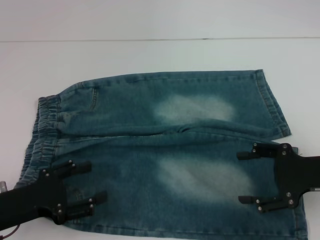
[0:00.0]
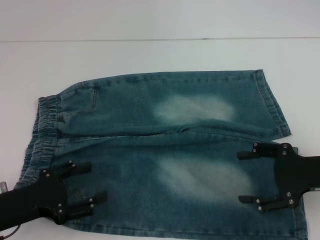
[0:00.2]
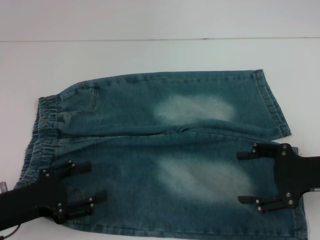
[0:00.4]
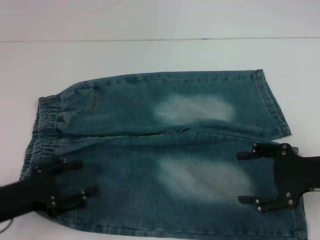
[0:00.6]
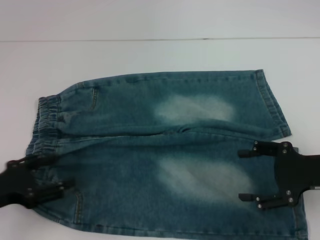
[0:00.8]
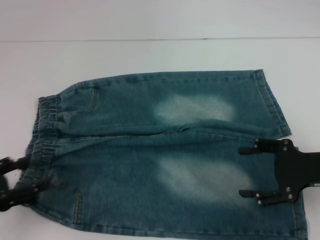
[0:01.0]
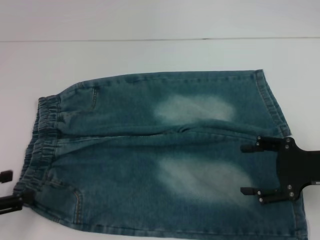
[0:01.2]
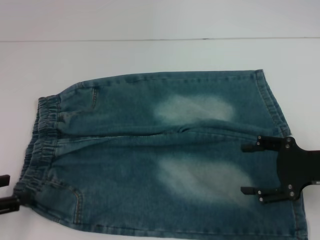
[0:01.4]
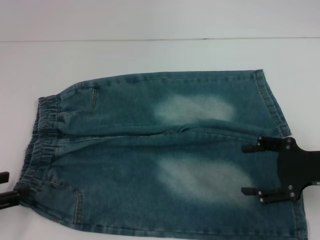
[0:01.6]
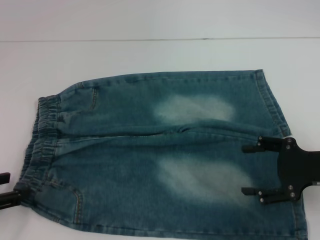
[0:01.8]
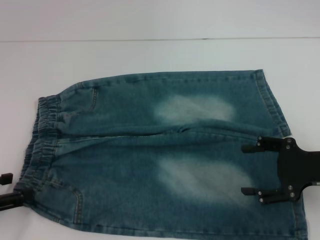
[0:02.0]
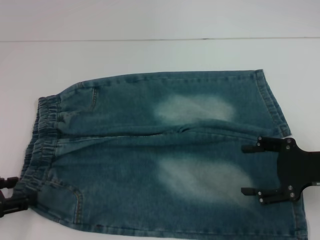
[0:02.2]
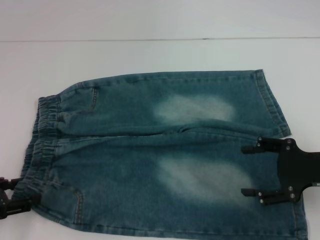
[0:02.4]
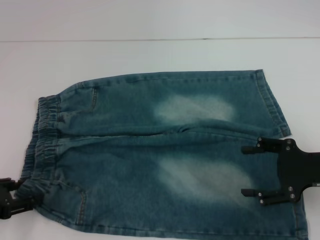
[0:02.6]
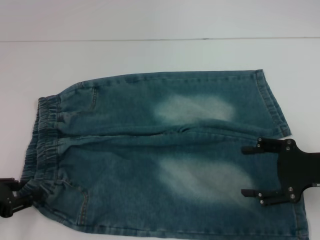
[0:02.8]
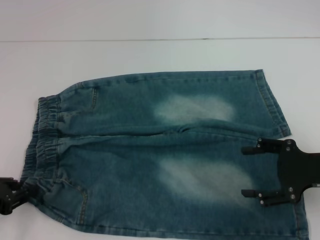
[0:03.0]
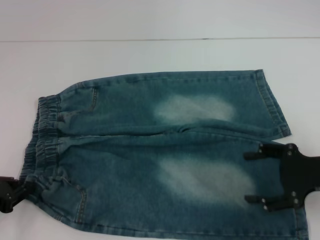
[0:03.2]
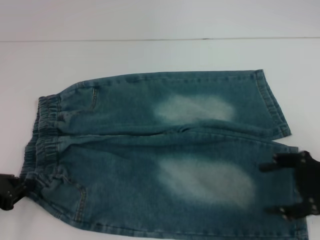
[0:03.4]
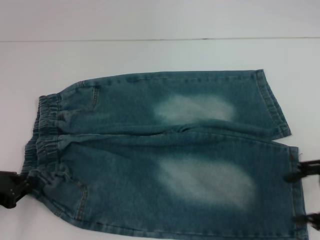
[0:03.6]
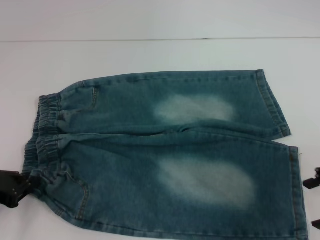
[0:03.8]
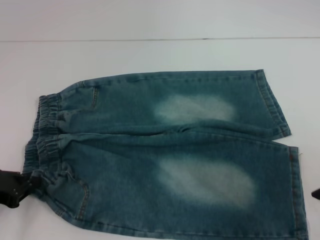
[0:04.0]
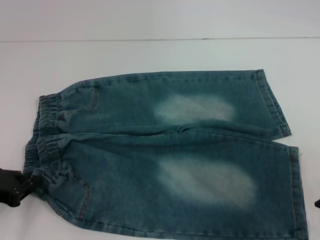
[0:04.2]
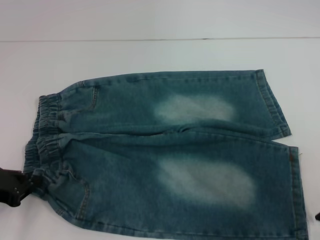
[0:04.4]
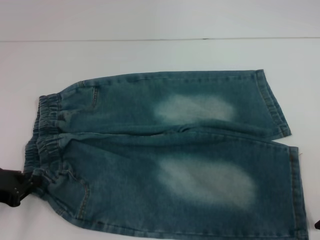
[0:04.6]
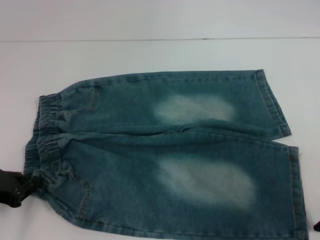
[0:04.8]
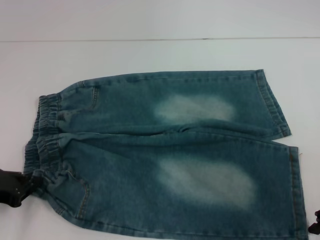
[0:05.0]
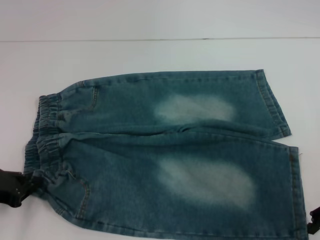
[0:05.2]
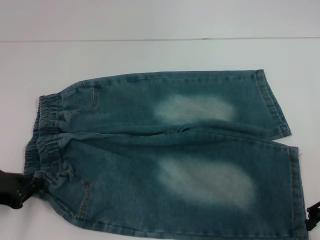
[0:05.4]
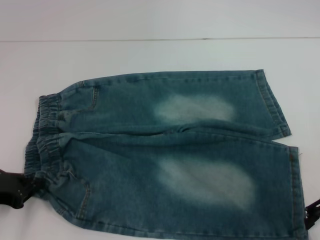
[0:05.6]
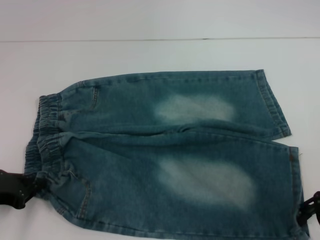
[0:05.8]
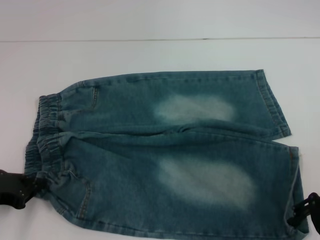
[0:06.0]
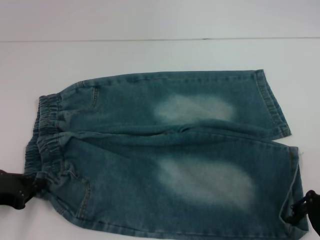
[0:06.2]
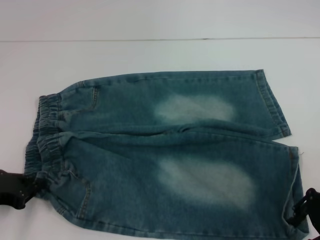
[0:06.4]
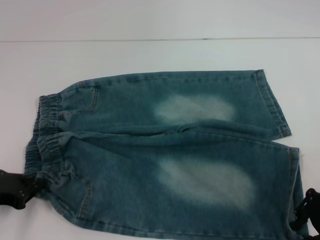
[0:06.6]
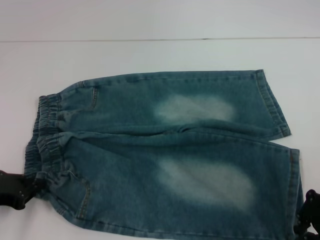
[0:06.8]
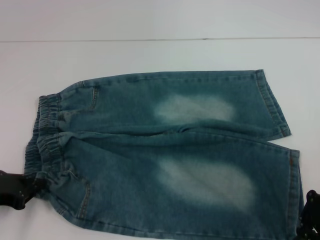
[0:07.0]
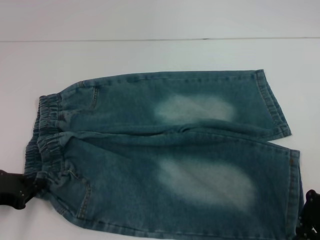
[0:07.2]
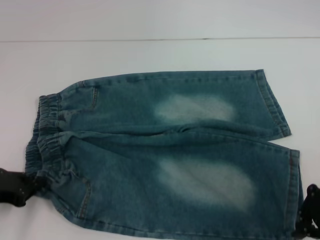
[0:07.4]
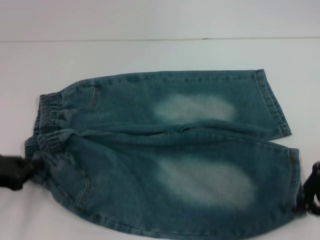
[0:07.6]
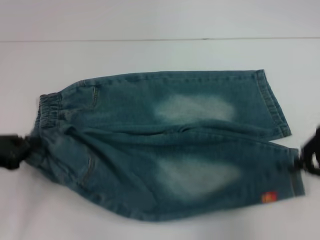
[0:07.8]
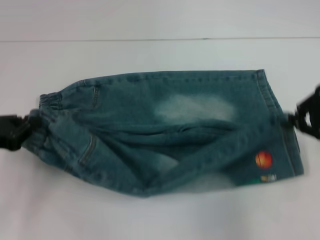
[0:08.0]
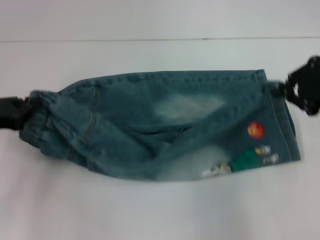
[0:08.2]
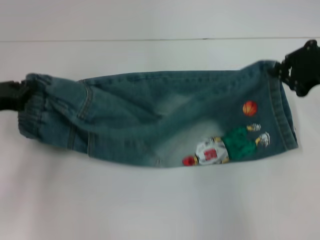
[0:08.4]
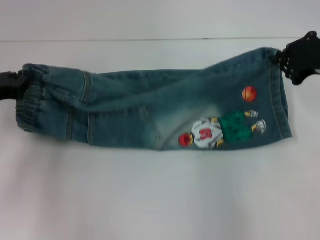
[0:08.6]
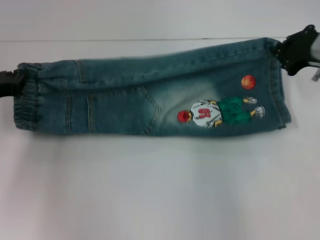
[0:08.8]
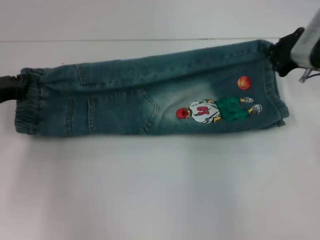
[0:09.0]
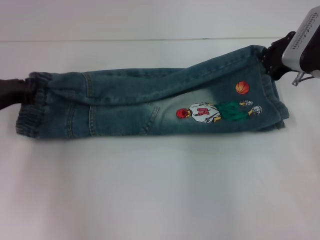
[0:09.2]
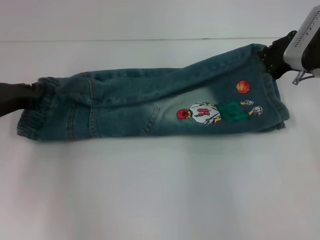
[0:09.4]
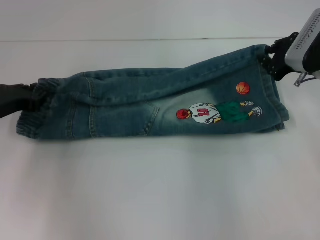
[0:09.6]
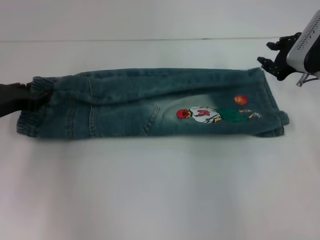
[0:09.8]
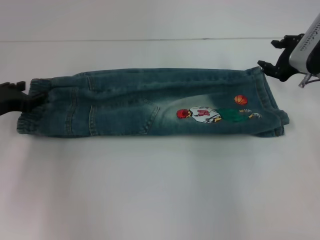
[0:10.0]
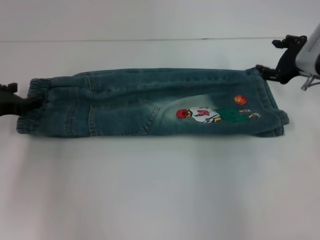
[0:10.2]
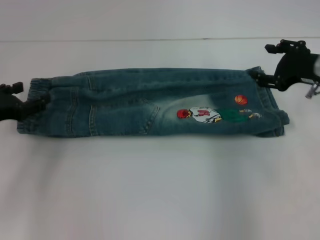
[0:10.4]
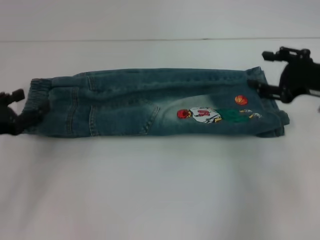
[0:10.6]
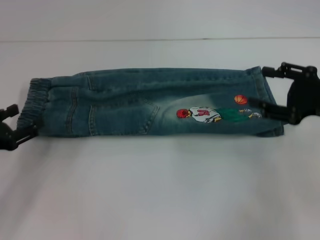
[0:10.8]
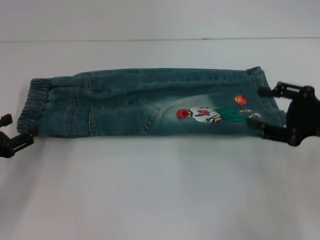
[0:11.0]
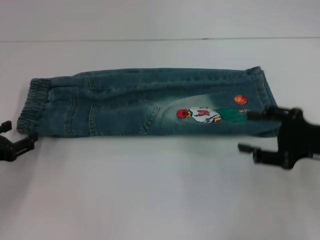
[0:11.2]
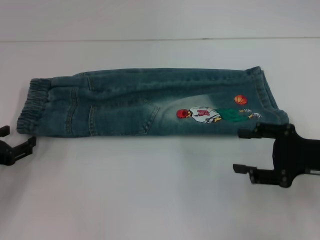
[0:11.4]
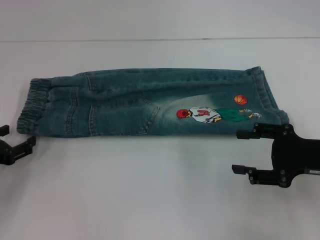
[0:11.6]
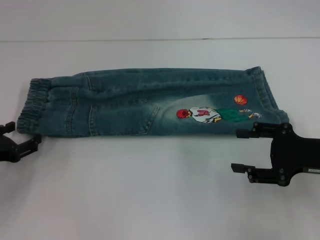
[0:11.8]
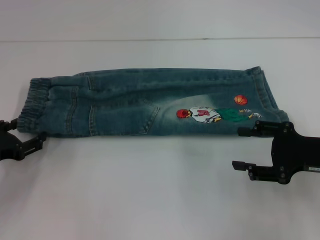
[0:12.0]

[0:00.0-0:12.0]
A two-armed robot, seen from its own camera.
Step, 0:00.0 to 0:03.2: Hold the lower left waistband with your left hand.
Step, 0:03.6 to 0:07.2: Grab the lower right pant leg with your right hand.
Step, 0:07.4 to 0:10.0: Fold upward with your right hand.
0:00.0 to 0:01.6: The left gripper is displaced to the left by approximately 10 cm.
0:01.6 to 0:03.0: The grippers move only a little.
0:03.0 to 0:04.4: The left gripper closes its fingers.
0:04.4 to 0:06.0: The grippers move only a little.
0:06.0 to 0:07.6: The right gripper closes.
0:07.6 to 0:09.0: The two grippers go about 10 cm forward.
0:09.0 to 0:10.4: The left gripper opens its fingers. The right gripper opens.
0:10.4 to 0:12.0: The left gripper shifts about 5 cm downward, while the right gripper travels backward by some 10 cm.

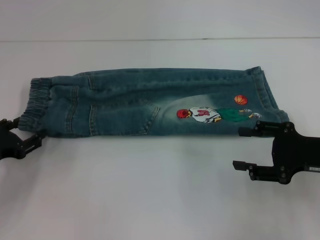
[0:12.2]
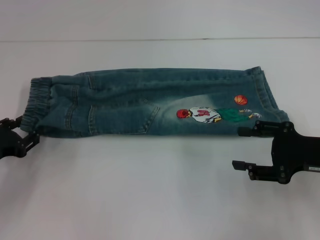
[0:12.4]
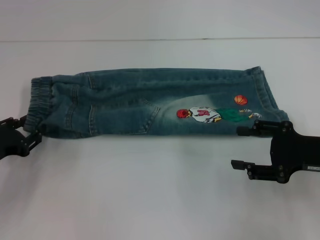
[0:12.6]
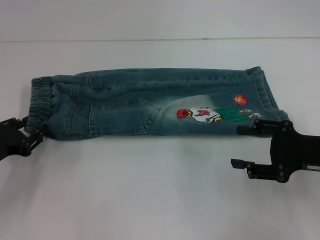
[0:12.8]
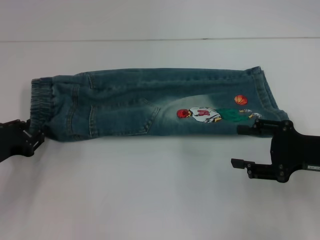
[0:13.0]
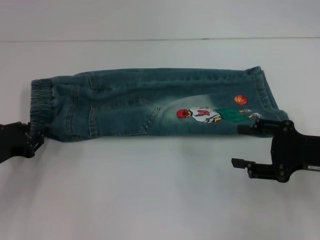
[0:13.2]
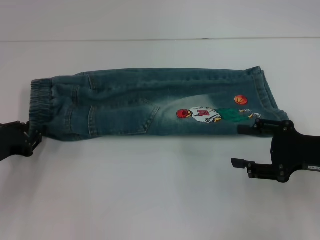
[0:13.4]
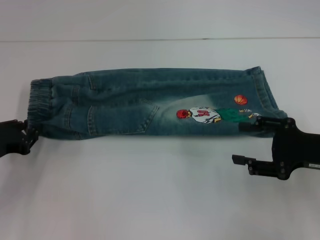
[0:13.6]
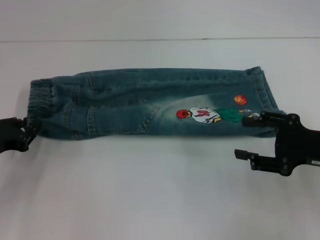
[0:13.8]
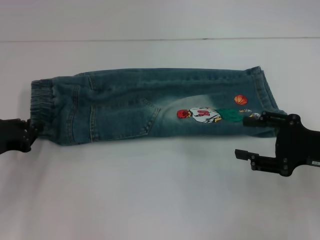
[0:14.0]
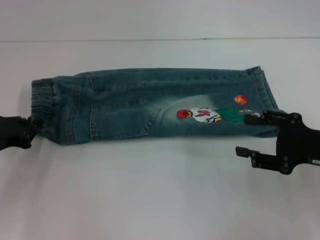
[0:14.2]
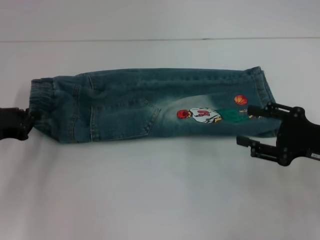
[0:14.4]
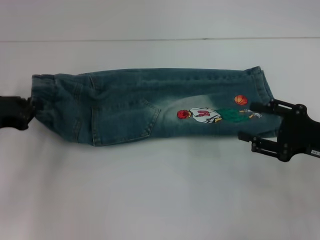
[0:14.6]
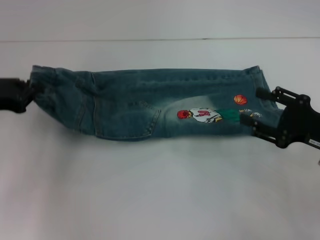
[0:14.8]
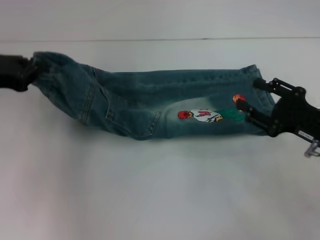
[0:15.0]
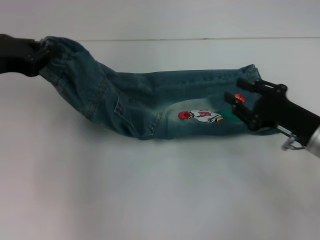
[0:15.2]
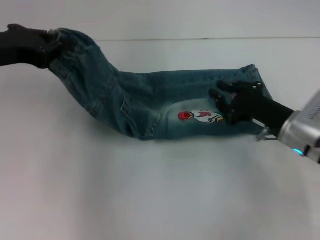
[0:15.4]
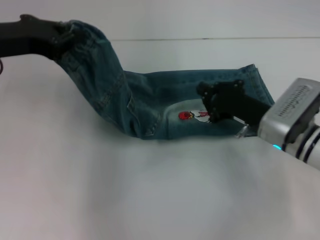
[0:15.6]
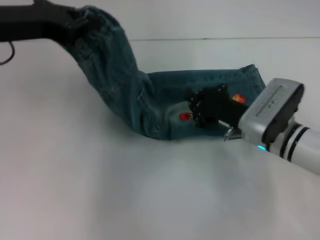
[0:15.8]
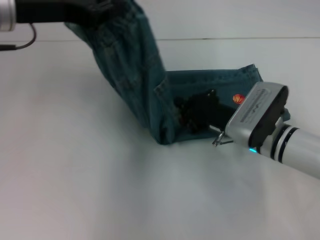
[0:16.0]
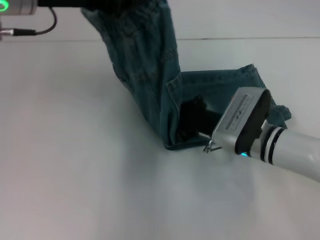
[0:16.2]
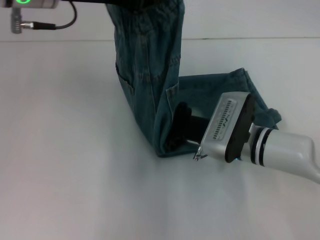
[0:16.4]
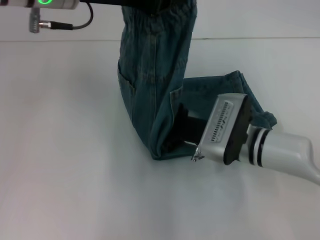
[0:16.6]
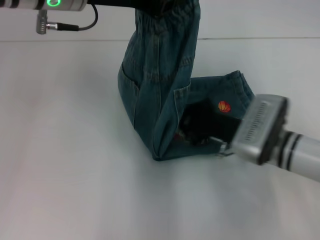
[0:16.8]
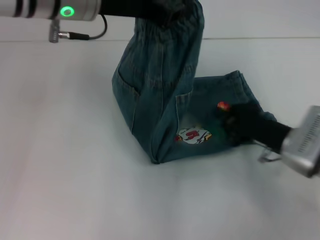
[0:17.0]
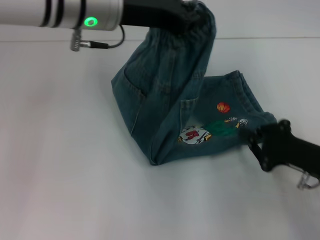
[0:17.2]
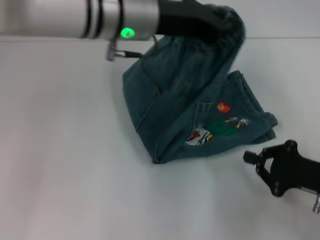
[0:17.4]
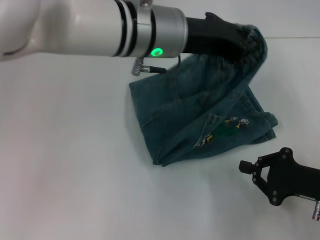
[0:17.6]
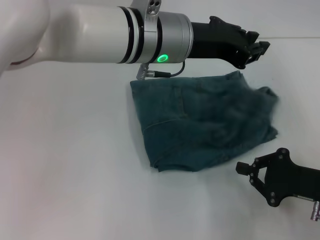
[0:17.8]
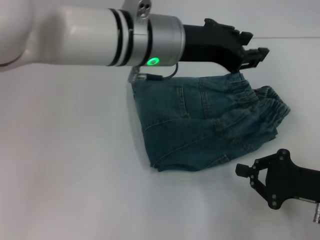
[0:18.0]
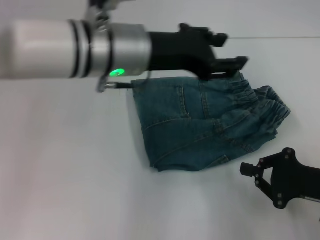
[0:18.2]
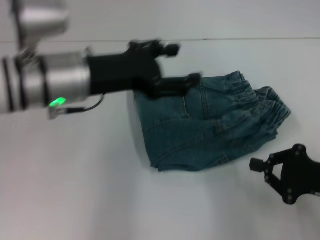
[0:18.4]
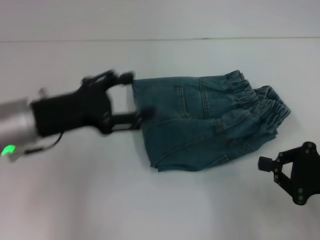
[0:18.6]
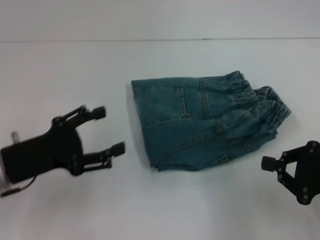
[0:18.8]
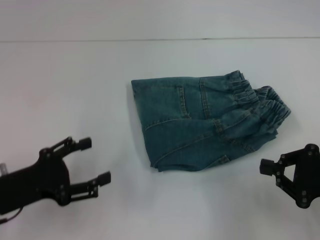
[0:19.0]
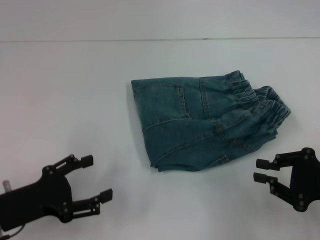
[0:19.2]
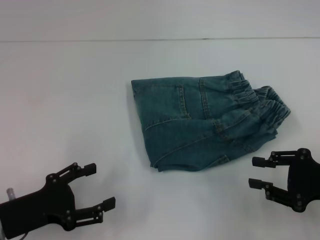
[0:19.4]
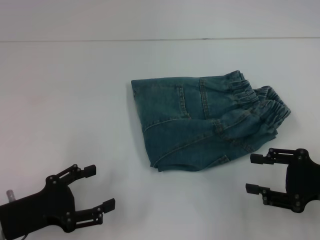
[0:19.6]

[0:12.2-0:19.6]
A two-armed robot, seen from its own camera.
Step, 0:14.2 to 0:16.6: Press the middle of the pants with your right hand.
Step, 0:17.0 to 0:18.0: Fold to the right with your left hand.
0:12.2 to 0:13.6: The left gripper closes its fingers.
0:13.6 to 0:15.2: The left gripper is displaced upward by some 15 cm; the right gripper changes place by about 5 cm.
0:15.2 to 0:16.6: The left gripper goes some 15 cm to the right and upward. The right gripper heads to the left, covering some 15 cm, and closes up.
0:16.6 to 0:18.2: The right gripper moves to the right and backward, about 20 cm; the left gripper moves downward and to the right, about 10 cm.
0:18.2 to 0:19.6: The right gripper opens. Meanwhile the left gripper shifts some 30 cm to the left, downward and backward, and opens its fingers.
